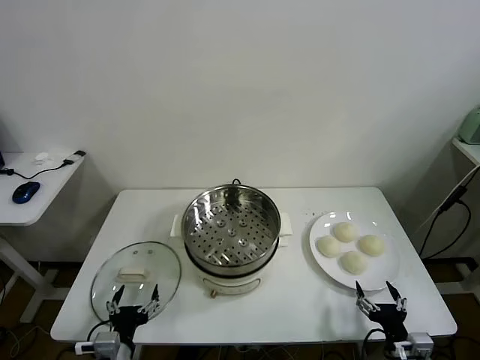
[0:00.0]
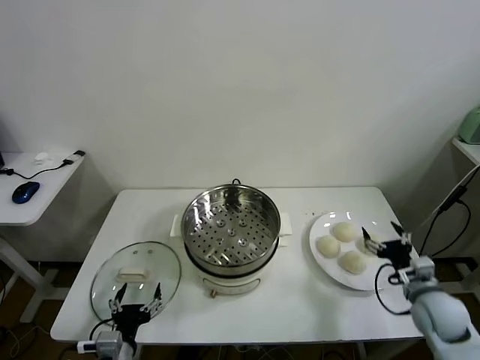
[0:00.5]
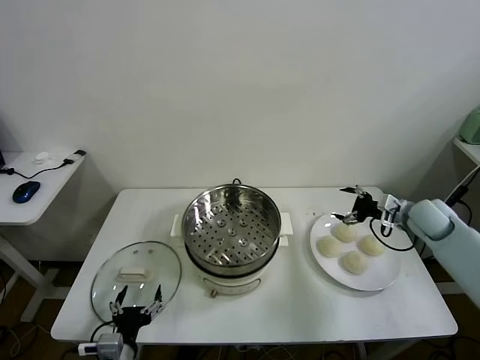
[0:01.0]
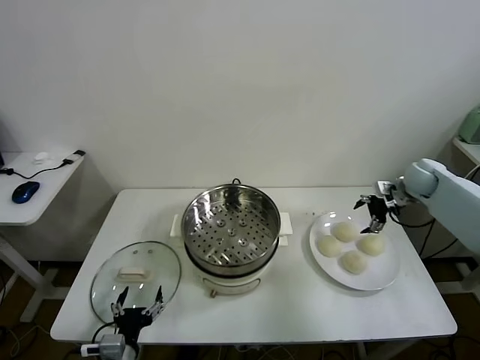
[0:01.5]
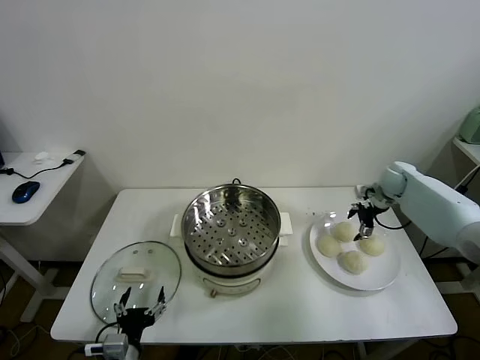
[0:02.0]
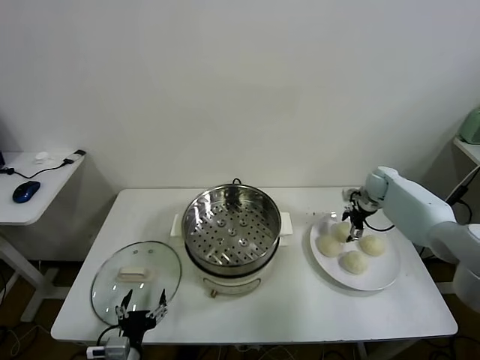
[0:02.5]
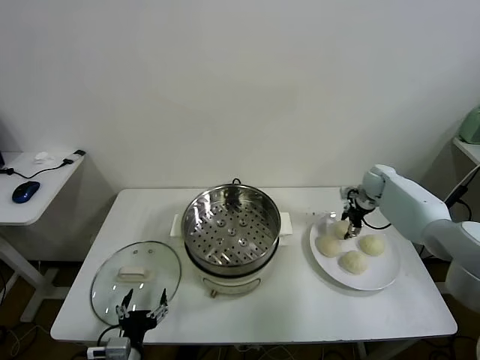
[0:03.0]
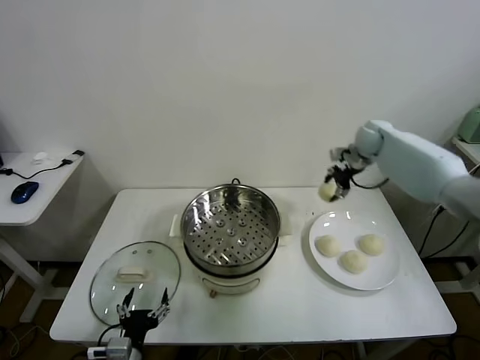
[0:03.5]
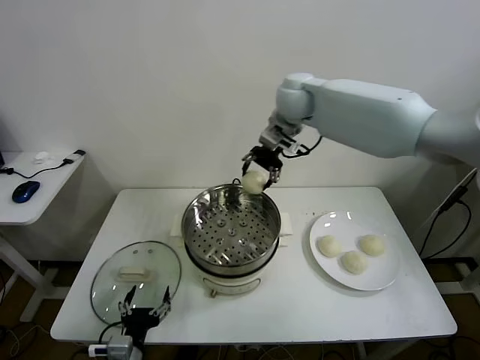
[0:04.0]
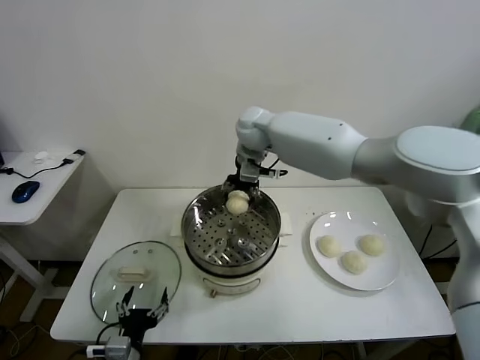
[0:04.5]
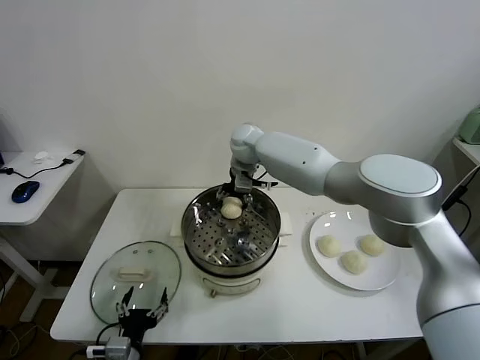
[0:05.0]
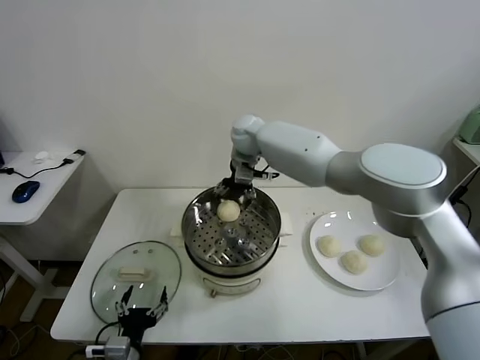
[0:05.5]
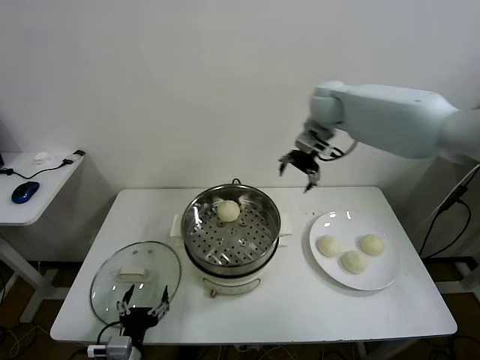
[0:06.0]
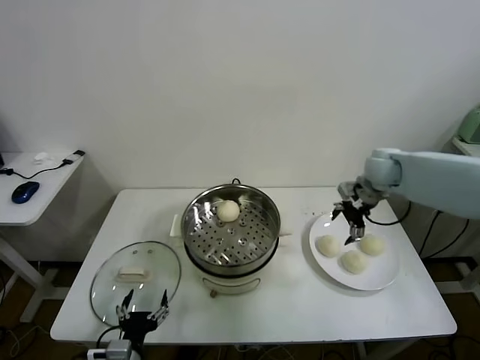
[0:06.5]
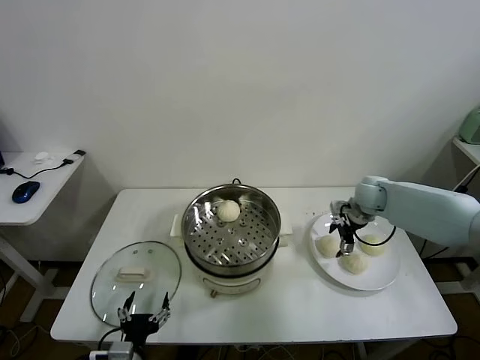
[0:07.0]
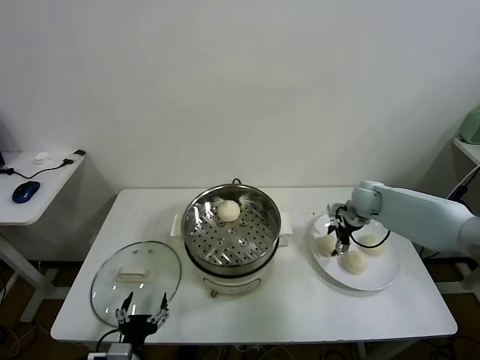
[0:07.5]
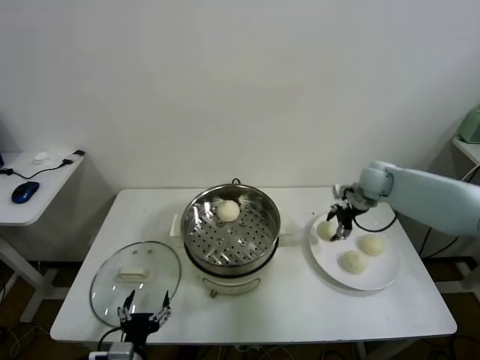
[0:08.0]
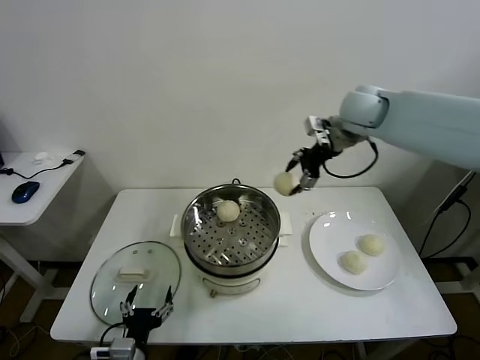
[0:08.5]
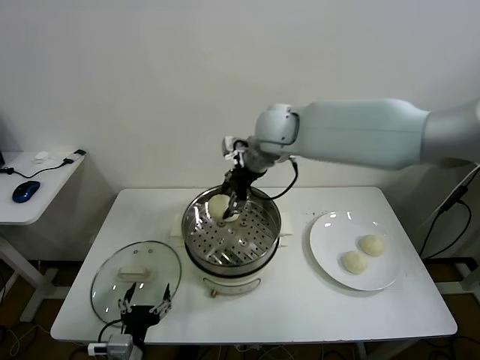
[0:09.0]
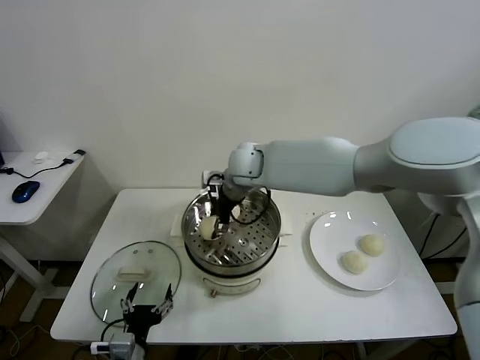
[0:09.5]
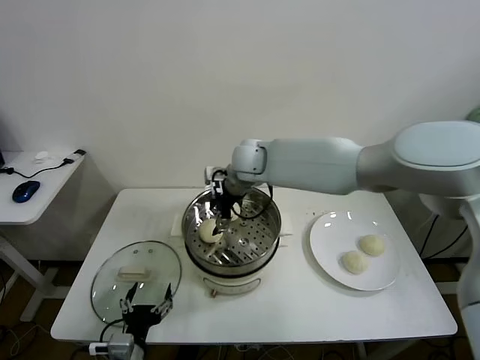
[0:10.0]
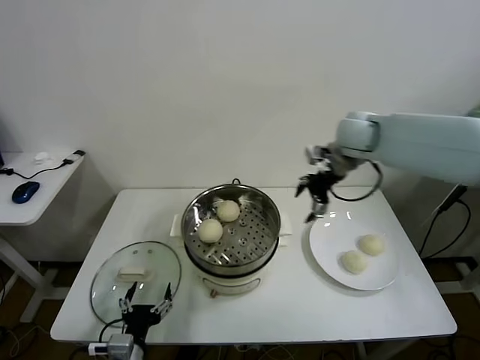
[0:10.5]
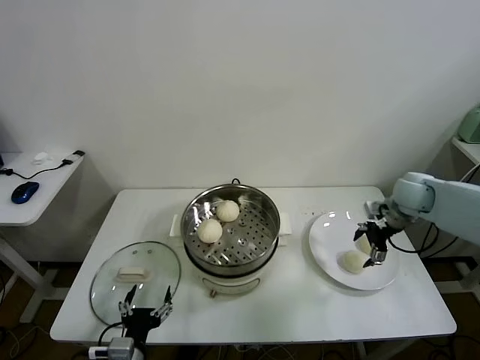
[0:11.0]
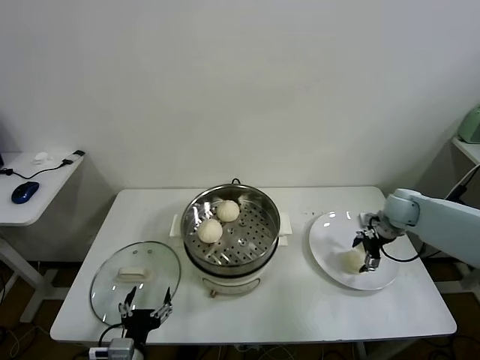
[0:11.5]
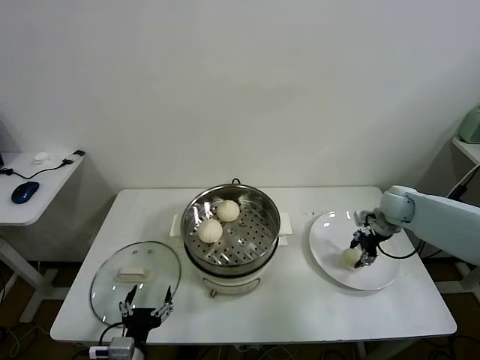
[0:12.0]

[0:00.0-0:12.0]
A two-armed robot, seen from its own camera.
Task of the whole recording: take steamed baozi put them in steamer.
Step, 0:00.0 to 0:02.5: Grasp the baozi in the plate with right gripper.
Step, 0:03.5 to 0:05.5: Place the baozi on the steamer with right gripper.
Step, 0:06.0 to 0:07.5: Grasp the baozi in the plate with right gripper.
Step, 0:08.0 to 0:10.0: Place the baozi on the steamer with right gripper.
Step, 0:10.5 to 0:11.5: Grasp the baozi in the plate with right gripper.
0:02.0 to 0:04.0: The right gripper moves to the left and upward, roughly 40 cm, and closes.
0:04.0 to 0:06.0: The right gripper travels to the right by some 15 cm, and opens its fingers.
0:06.0 to 0:08.0: The right gripper is displaced downward and to the right by some 15 cm, and closes up.
0:08.0 to 0:10.0: The right gripper goes about 30 cm to the left, and opens up.
0:10.0 to 0:12.0: The right gripper is displaced to the right by roughly 35 cm, and closes up.

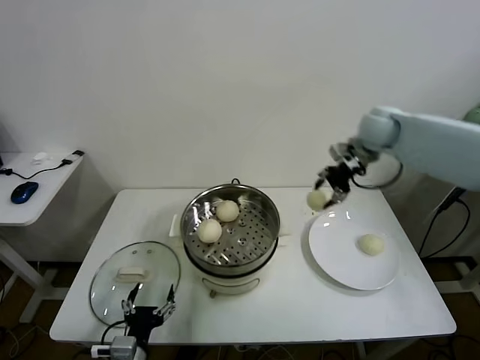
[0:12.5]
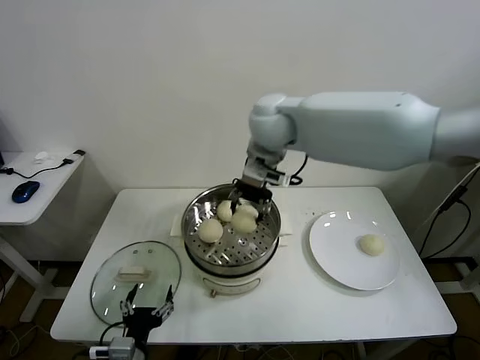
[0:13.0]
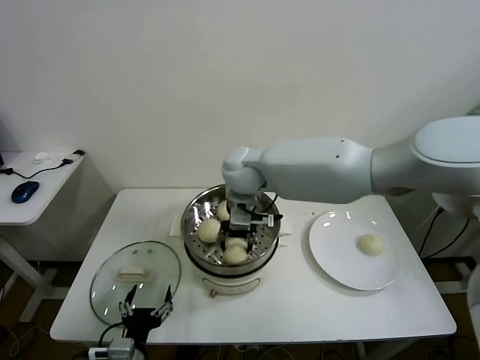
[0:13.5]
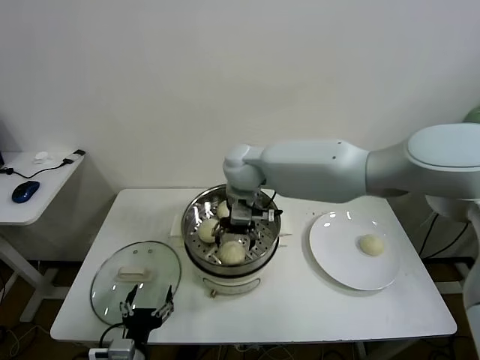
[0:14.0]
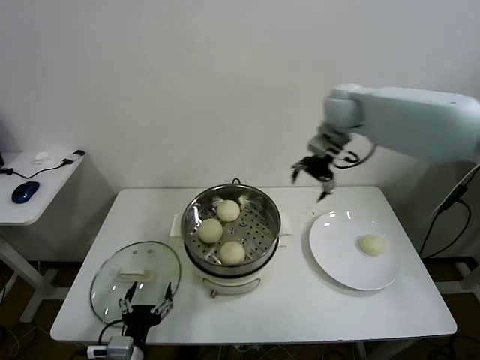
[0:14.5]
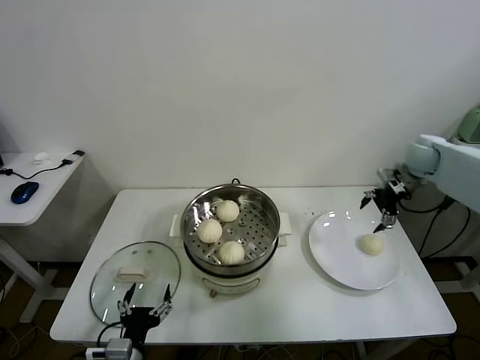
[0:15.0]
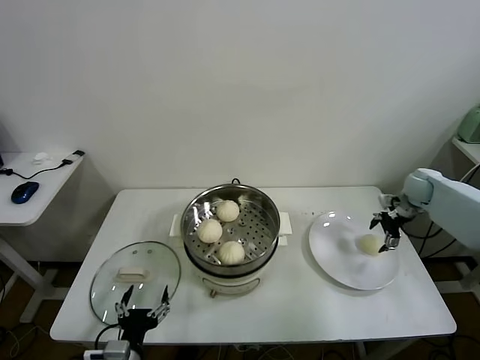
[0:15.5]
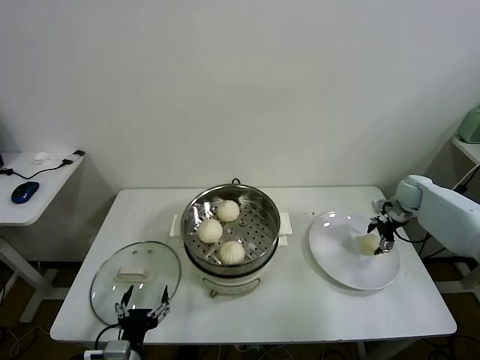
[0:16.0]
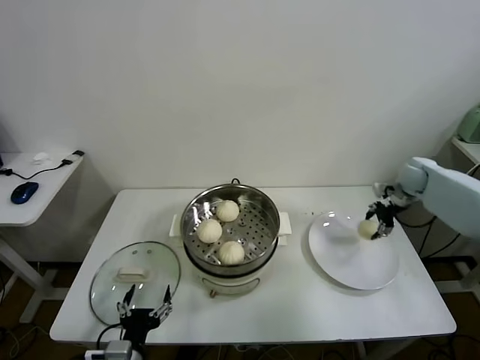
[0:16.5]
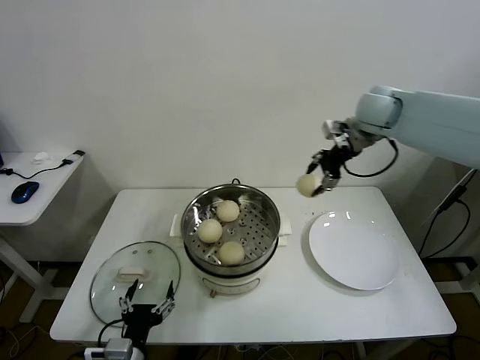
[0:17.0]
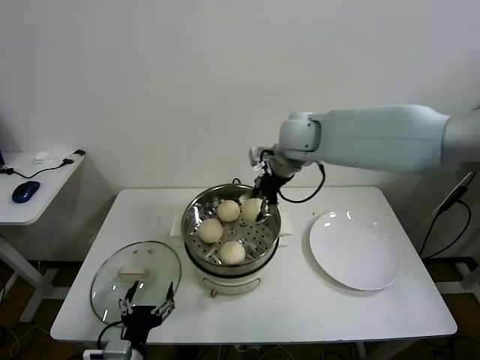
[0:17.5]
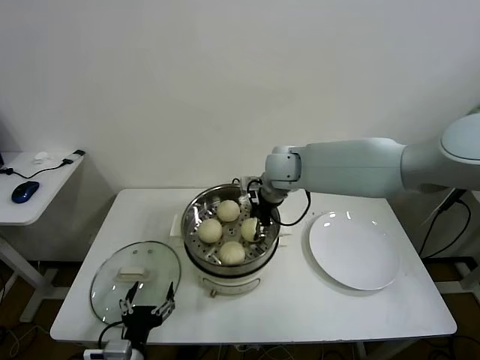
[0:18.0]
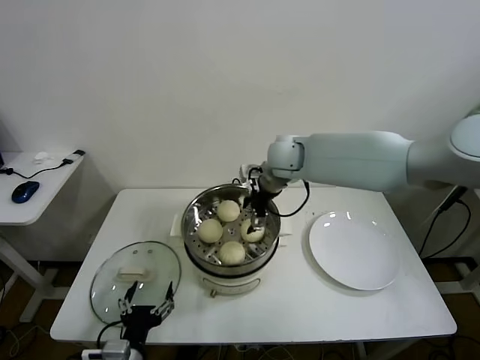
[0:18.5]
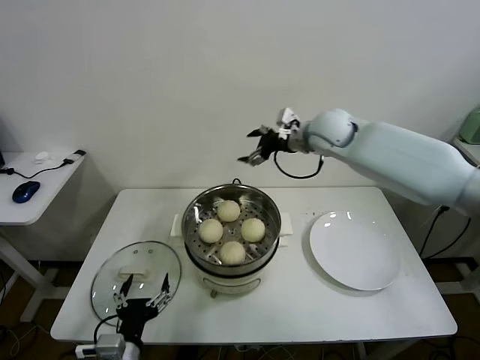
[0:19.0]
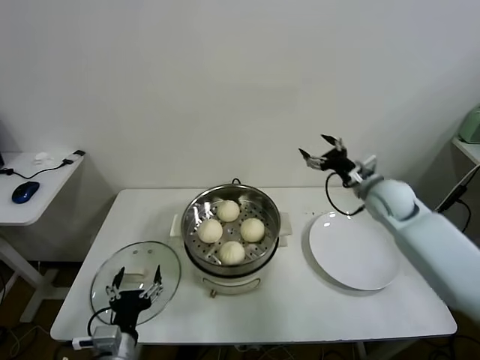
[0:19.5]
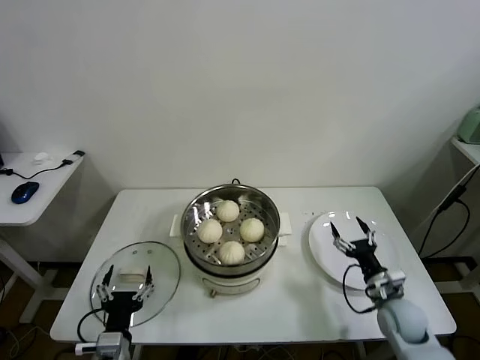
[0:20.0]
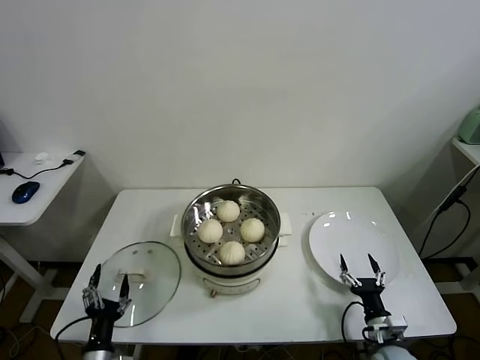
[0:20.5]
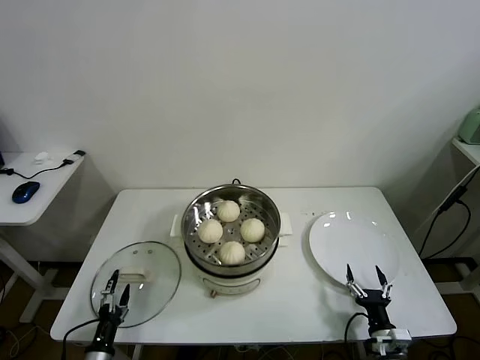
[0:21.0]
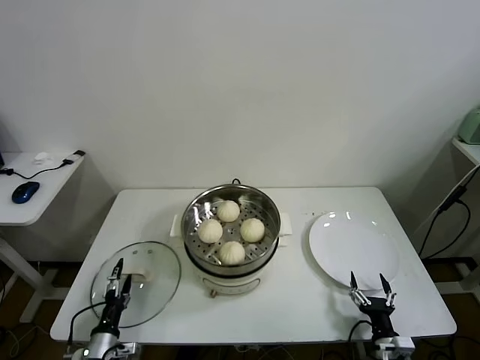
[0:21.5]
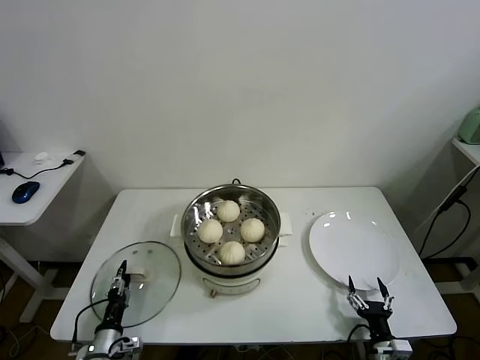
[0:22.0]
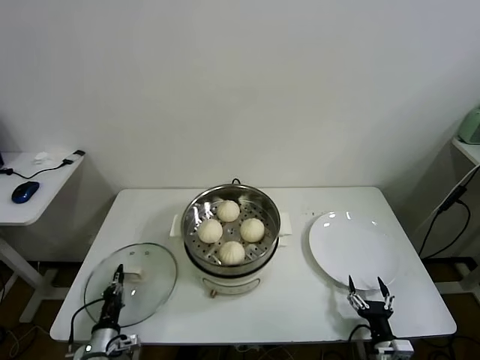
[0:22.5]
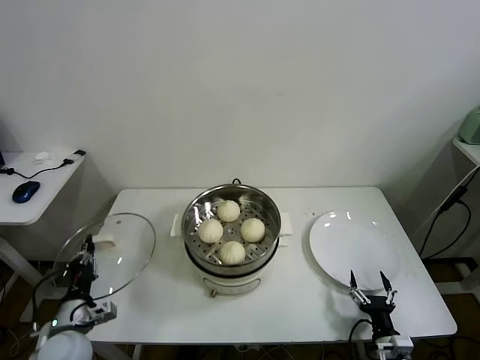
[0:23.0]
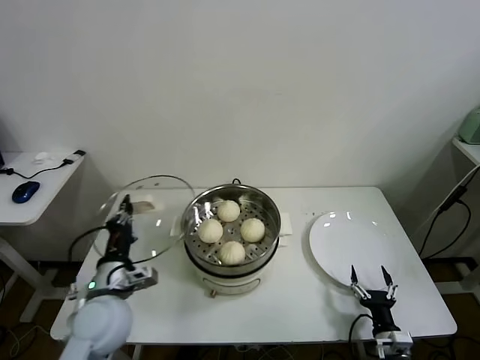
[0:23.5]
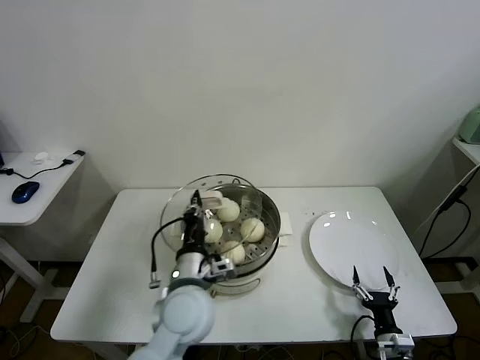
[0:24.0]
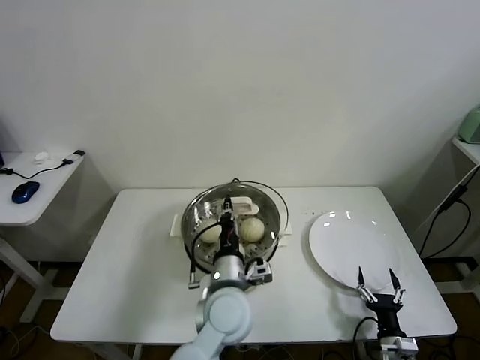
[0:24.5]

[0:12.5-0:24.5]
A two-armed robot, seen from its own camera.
Task of the whole recording: take steamed baozi put them in steamer.
Step, 0:12.5 to 0:13.5: Place the baozi on the steamer with right gripper.
Step, 0:14.0 to 0:16.0: Grasp the baozi in the plate with right gripper.
Step, 0:16.5 to 0:18.0: Place the baozi on the steamer with right gripper.
Step, 0:19.0 to 0:22.5: Grasp the pot lid with left gripper.
0:12.5 to 0:14.5: The right gripper travels to the left and back again, approximately 30 cm each way, and opens up.
0:14.5 to 0:16.5: The right gripper shifts some 30 cm to the right and downward, and closes its fingers.
0:16.5 to 0:18.5: The right gripper travels to the left by approximately 35 cm, and opens its fingers.
0:18.5 to 0:20.5: The left gripper heads downward and to the left, covering approximately 10 cm. Meanwhile the right gripper moves downward, backward and to the right, approximately 50 cm.
0:20.5 to 0:22.5: The left gripper moves downward and forward, some 10 cm, and closes, while the right gripper shifts roughly 5 cm backward.
0:22.5 to 0:24.5: The left gripper heads to the right and upward, covering some 40 cm.

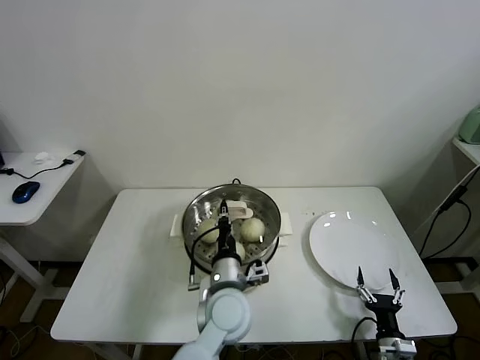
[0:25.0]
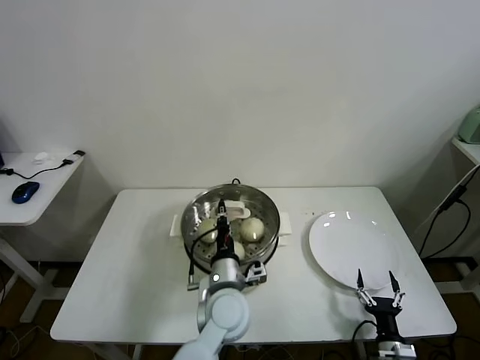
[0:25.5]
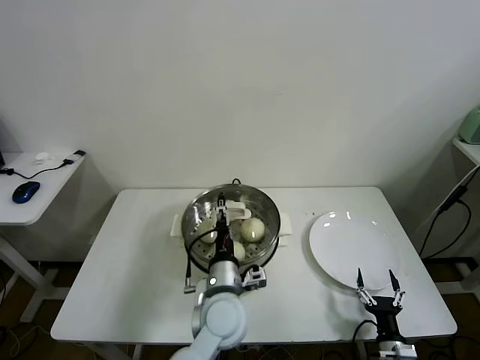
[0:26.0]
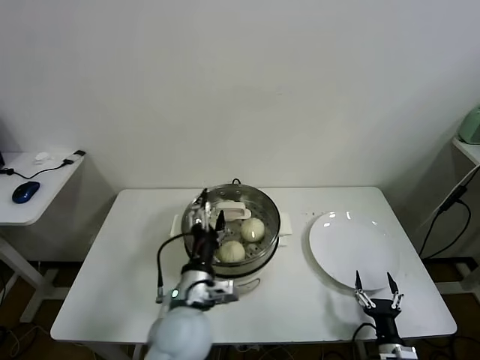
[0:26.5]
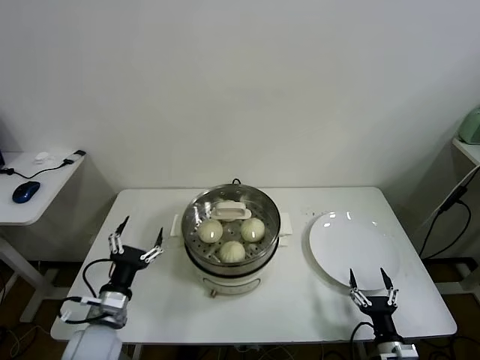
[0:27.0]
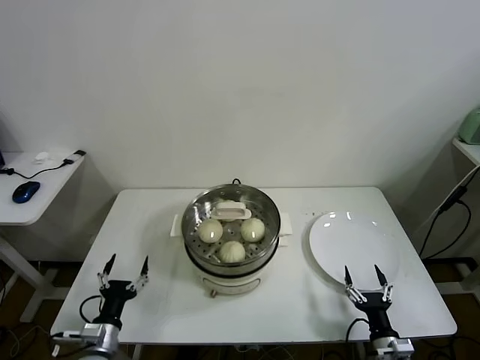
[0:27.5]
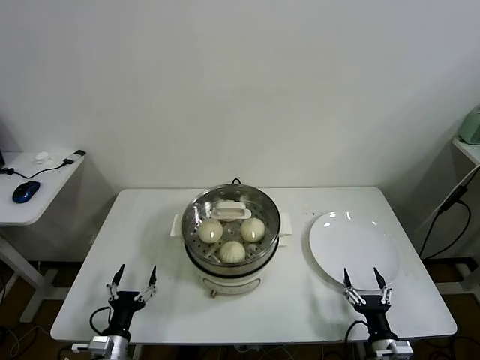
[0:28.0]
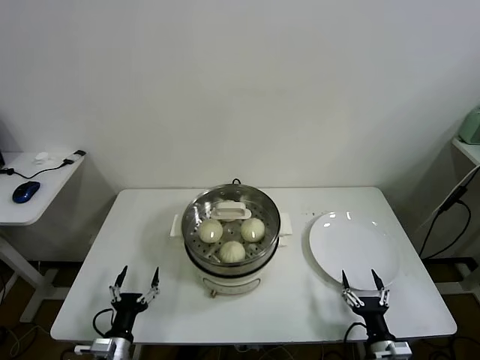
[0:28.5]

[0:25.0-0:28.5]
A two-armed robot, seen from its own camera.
Task of the whole recording: take steamed baozi put them in steamer.
0:25.0 to 0:27.0: The left gripper moves to the left, approximately 25 cm, and opens up.
0:27.0 to 0:28.5: The left gripper shifts roughly 15 cm downward.
